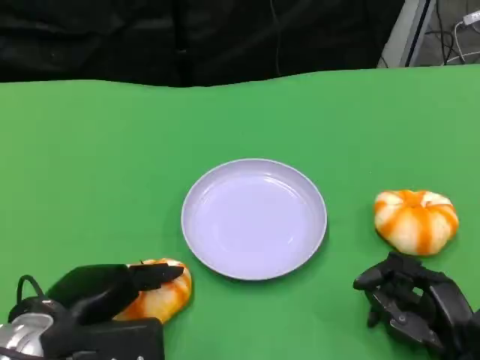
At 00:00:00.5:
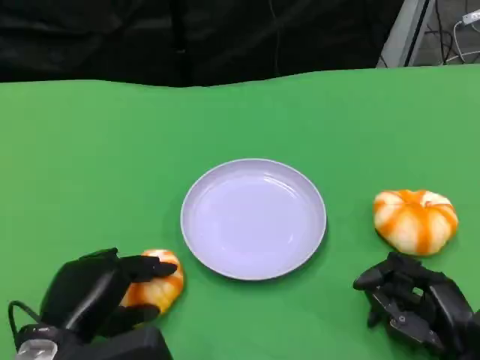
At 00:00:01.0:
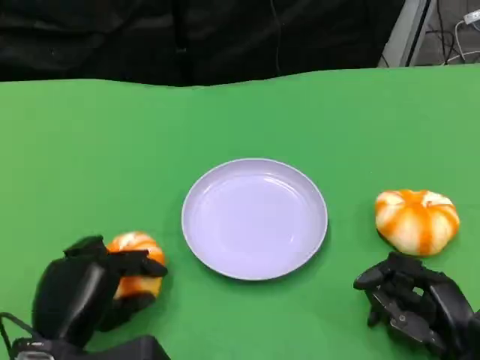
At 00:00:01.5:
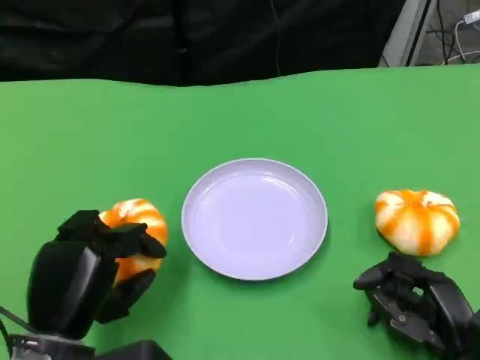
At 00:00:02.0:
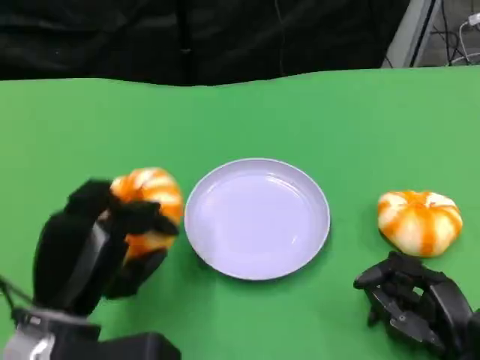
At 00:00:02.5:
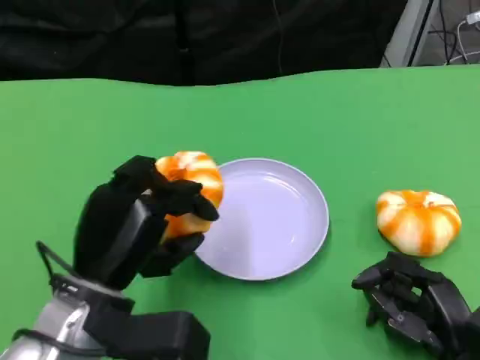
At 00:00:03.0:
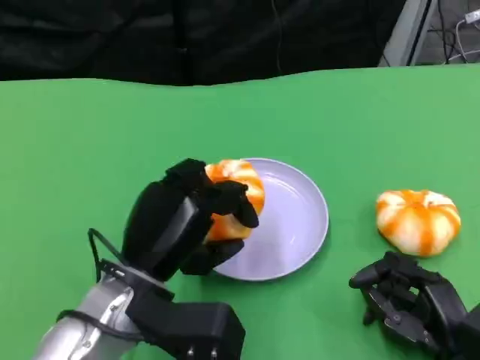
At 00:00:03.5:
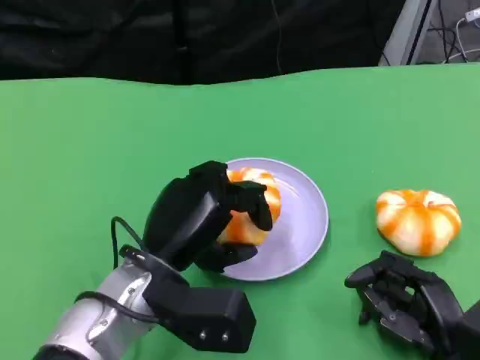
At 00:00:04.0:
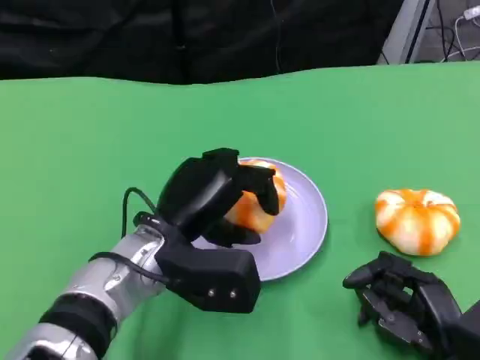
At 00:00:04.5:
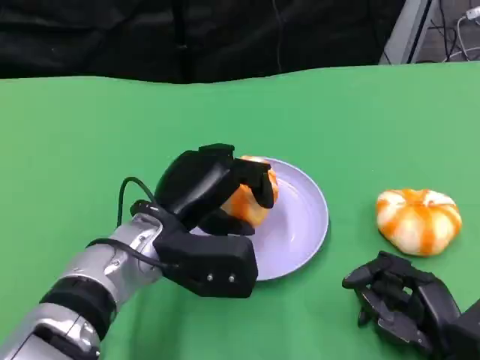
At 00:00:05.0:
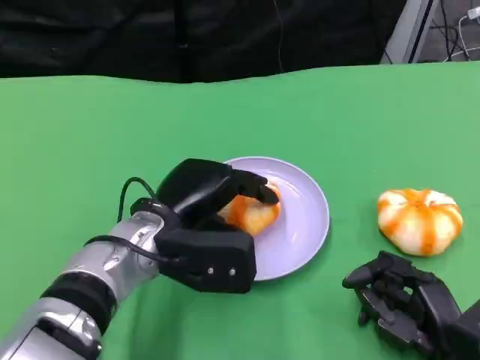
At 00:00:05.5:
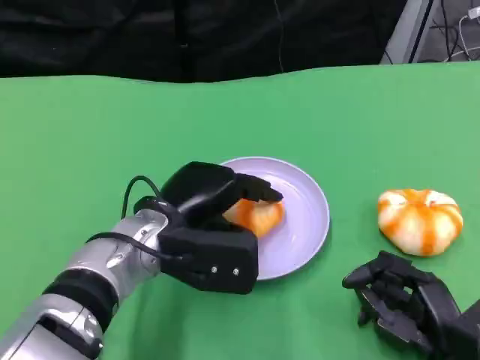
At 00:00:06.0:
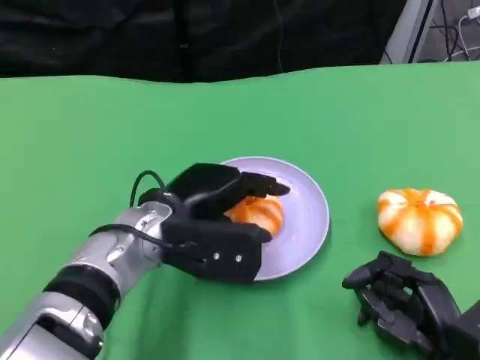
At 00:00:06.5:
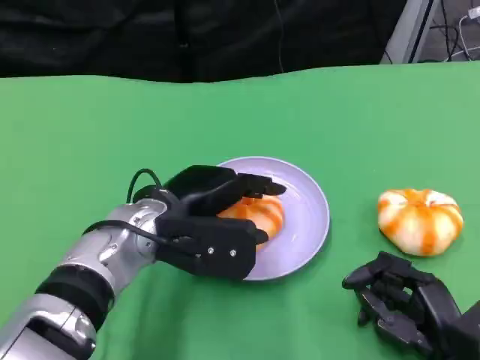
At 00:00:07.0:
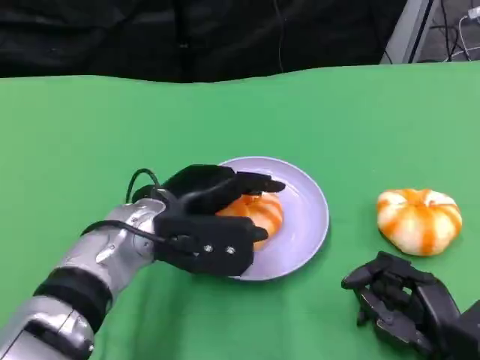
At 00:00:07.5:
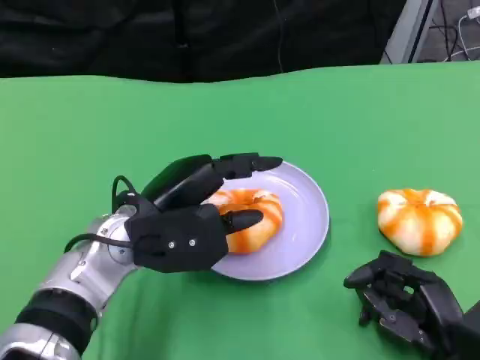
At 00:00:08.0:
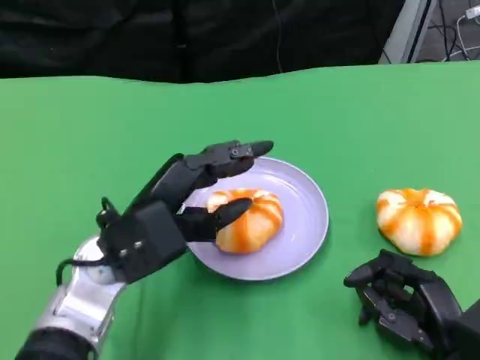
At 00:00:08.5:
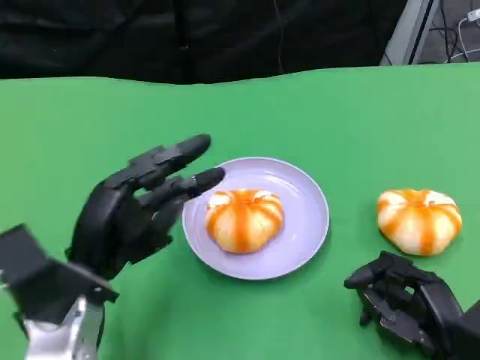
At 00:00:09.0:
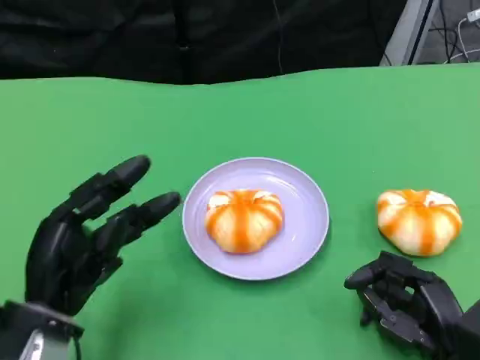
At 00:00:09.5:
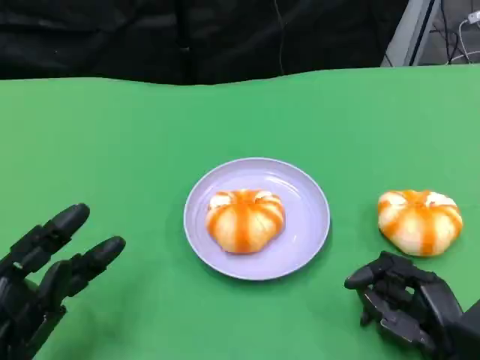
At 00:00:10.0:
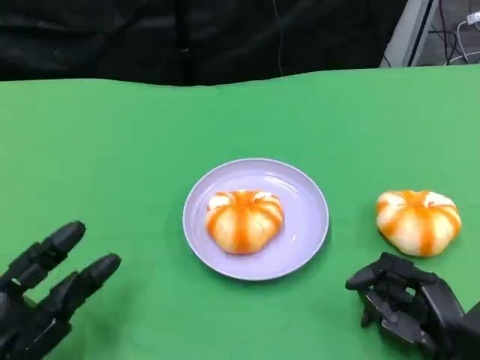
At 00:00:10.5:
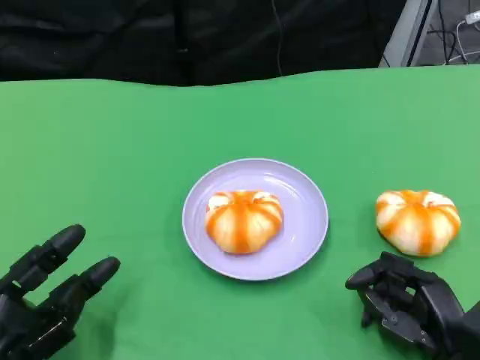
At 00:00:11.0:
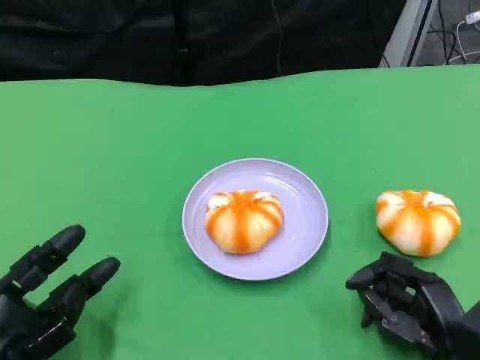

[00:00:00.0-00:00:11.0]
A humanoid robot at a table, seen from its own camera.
Task of the whole recording: Grasp the bread from the table and place it into the plate.
00:00:02.0 to 00:00:03.5: The left hand heads to the right, covering some 5 cm.
00:00:05.5 to 00:00:07.5: There are only small adjustments of the hands.
00:00:07.5 to 00:00:09.0: The left hand travels to the left, backward and downward by approximately 15 cm.
00:00:09.0 to 00:00:11.0: The left hand changes place by approximately 10 cm.

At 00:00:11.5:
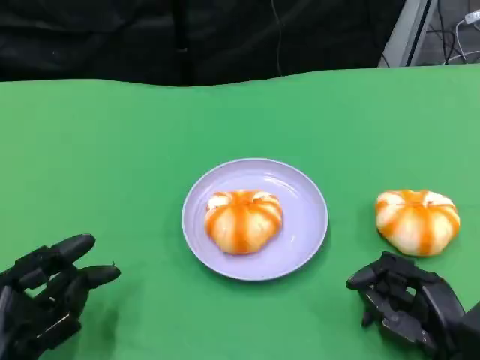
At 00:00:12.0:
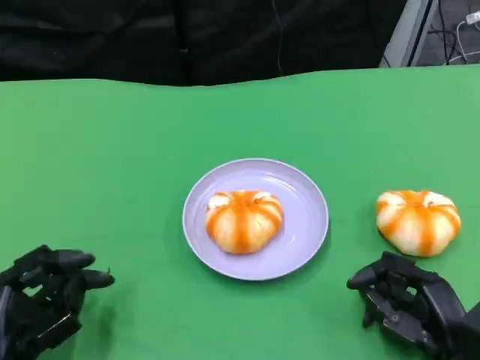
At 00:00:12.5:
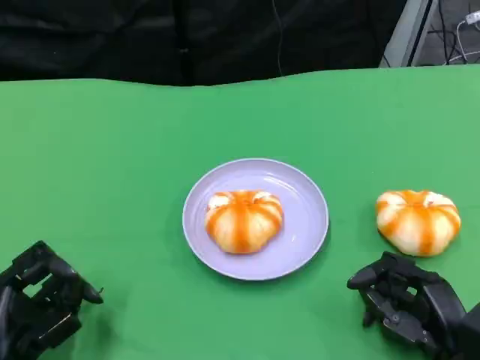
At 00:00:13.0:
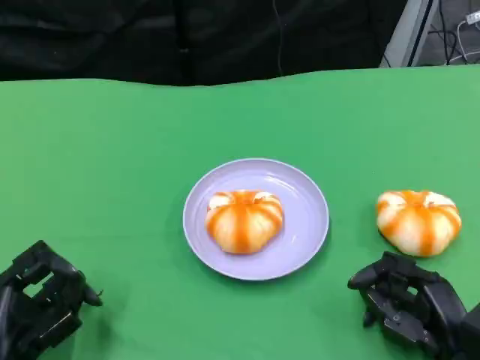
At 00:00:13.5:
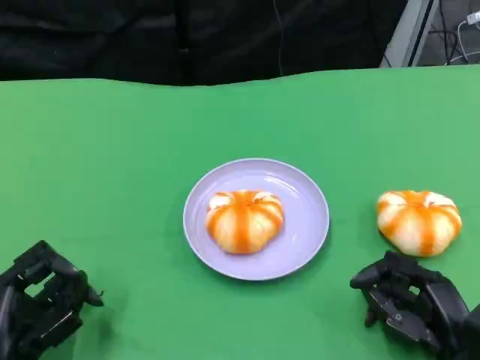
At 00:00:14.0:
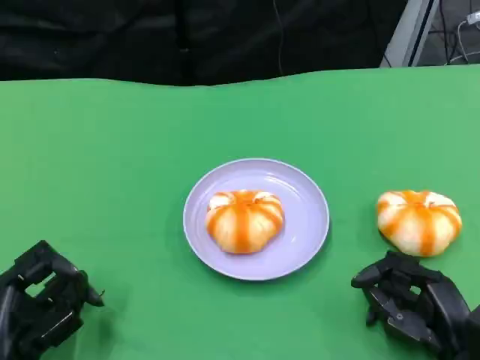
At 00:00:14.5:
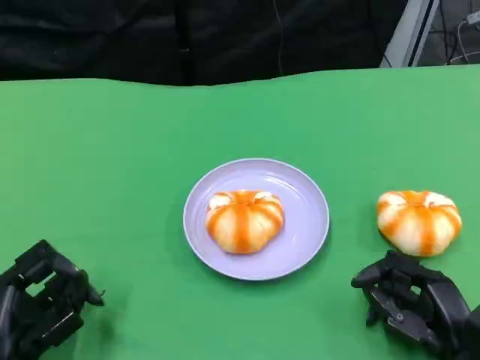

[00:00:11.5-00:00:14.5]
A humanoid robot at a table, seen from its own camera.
Task of the whole recording: Grasp the bread from the table and place it into the plate.
00:00:11.5 to 00:00:13.0: Both hands stay put.
00:00:13.0 to 00:00:14.5: Both hands stay put.

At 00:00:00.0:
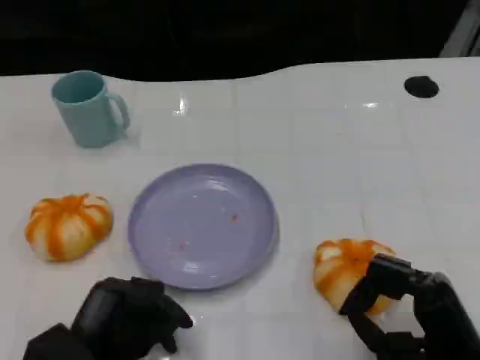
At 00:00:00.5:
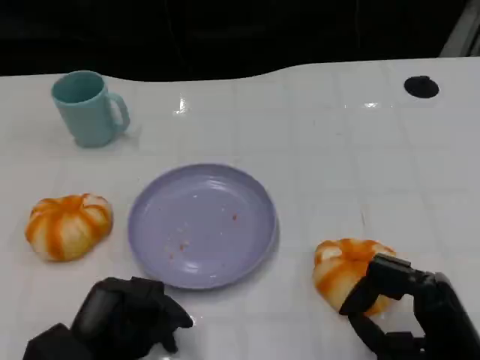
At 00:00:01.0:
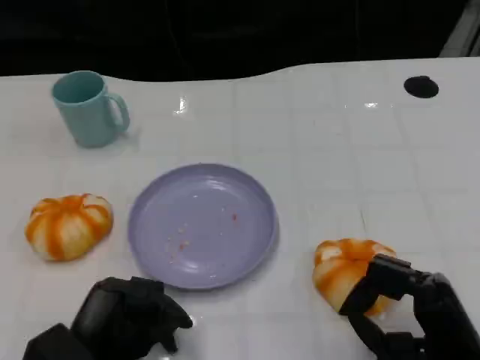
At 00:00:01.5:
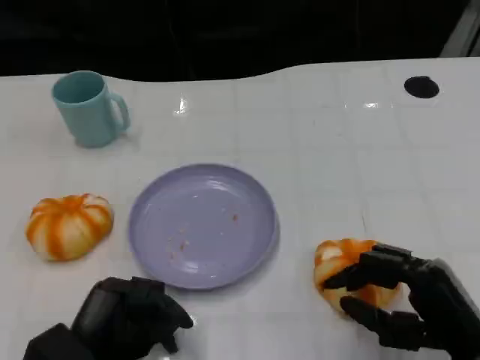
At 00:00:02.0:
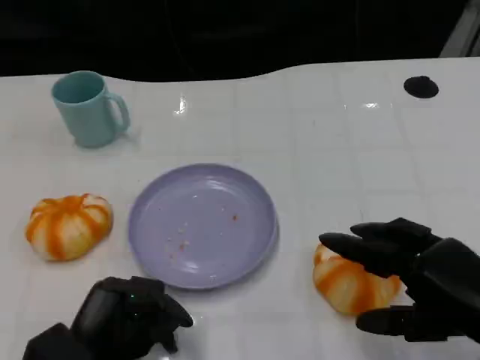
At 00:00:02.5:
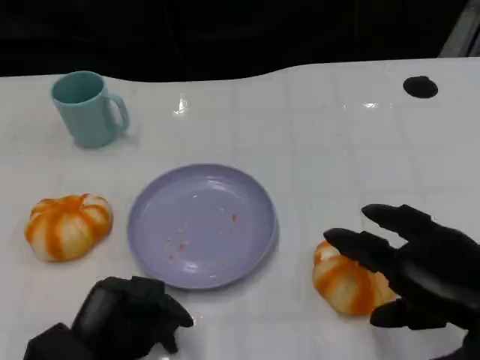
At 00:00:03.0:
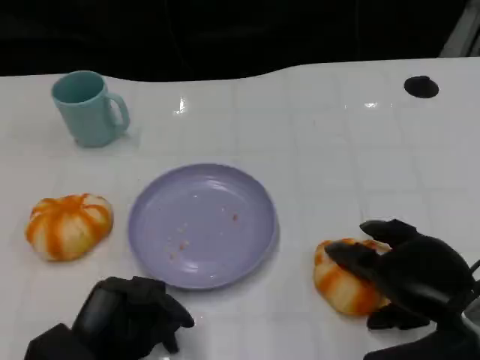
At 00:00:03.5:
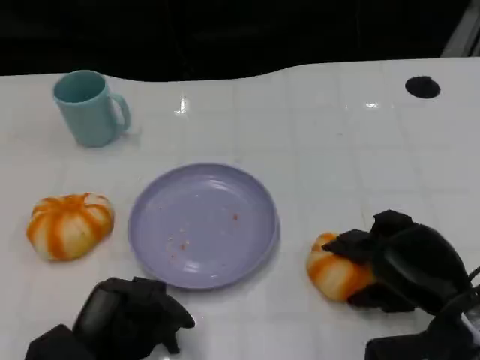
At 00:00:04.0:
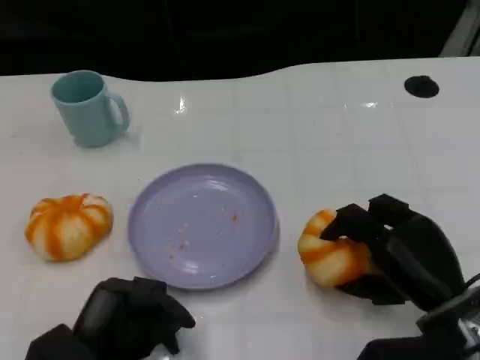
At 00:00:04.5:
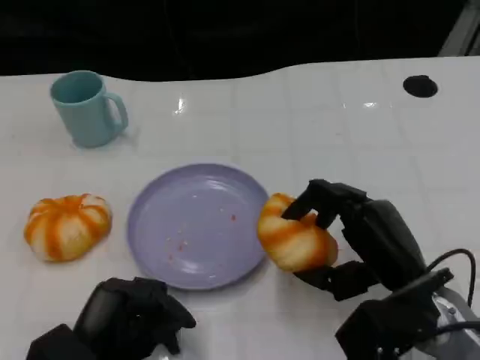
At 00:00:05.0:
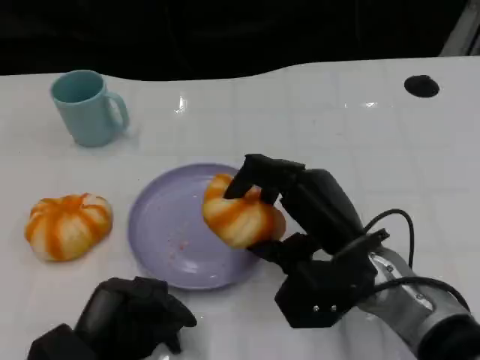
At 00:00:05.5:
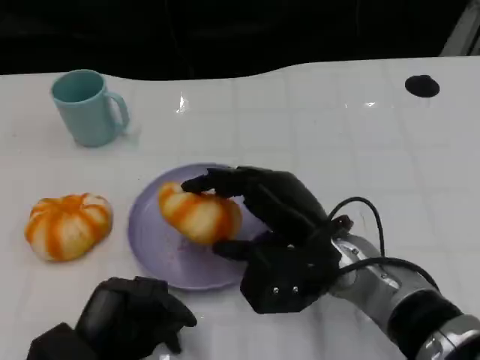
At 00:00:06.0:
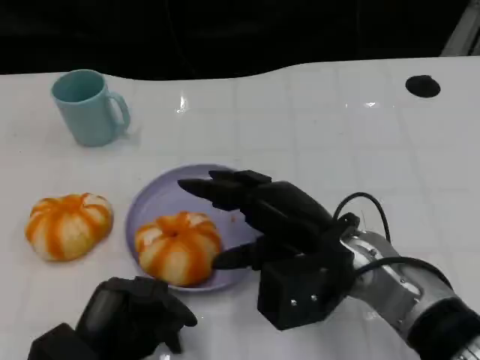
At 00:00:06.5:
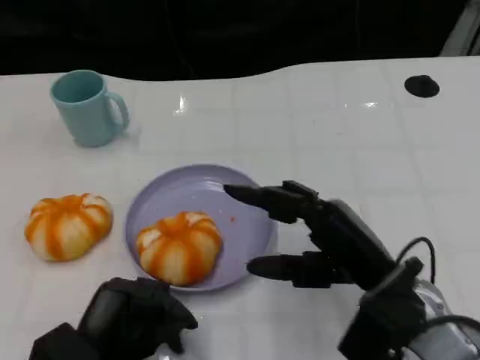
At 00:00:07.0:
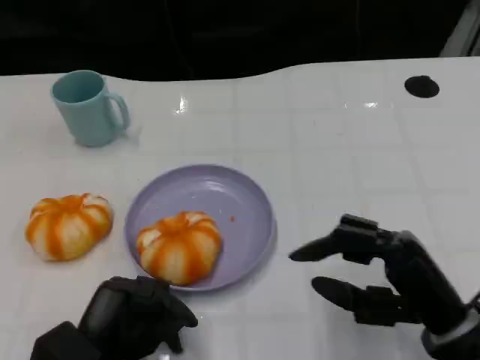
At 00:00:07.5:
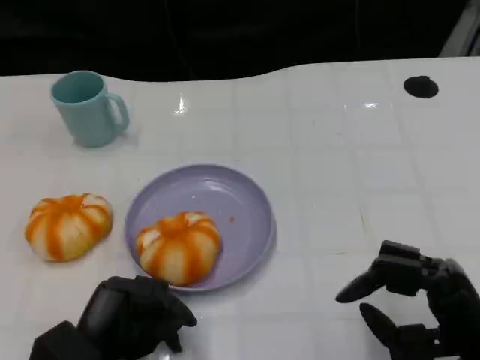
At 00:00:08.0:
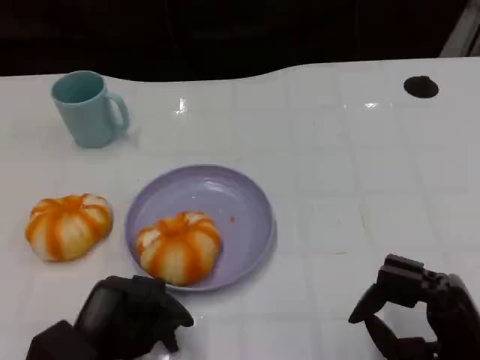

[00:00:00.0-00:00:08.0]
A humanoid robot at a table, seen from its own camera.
Task of the whole recording: Grasp the bread from the table and place it into the plate.
00:00:00.0 to 00:00:02.0: The right hand is displaced upward by roughly 10 cm.
00:00:02.0 to 00:00:04.0: The right hand shifts some 10 cm downward and forward.
00:00:04.0 to 00:00:06.0: The right hand goes about 10 cm to the left and upward.
00:00:06.0 to 00:00:08.0: The right hand shifts approximately 15 cm to the right, backward and downward.

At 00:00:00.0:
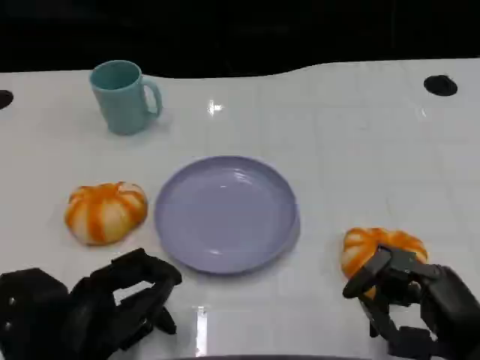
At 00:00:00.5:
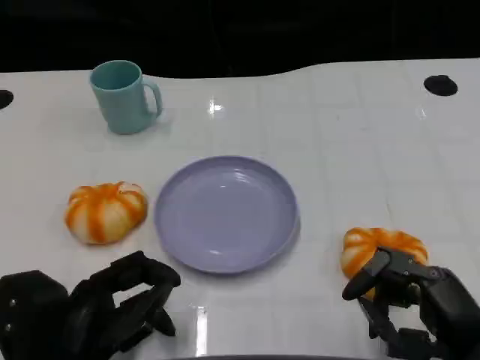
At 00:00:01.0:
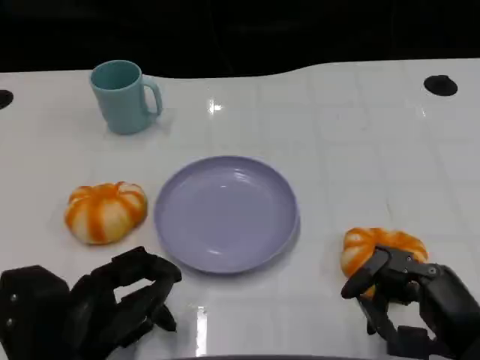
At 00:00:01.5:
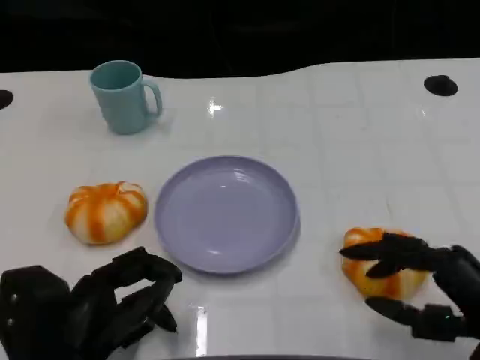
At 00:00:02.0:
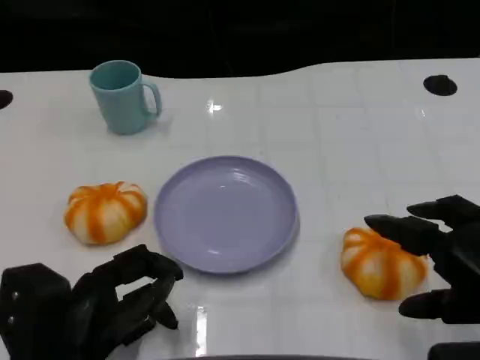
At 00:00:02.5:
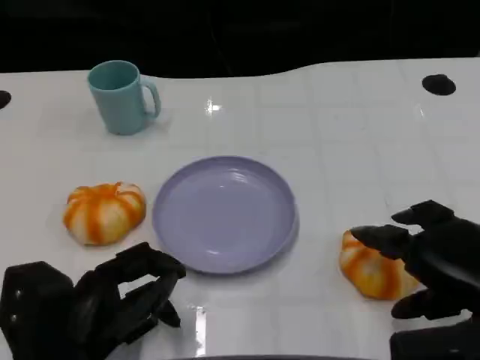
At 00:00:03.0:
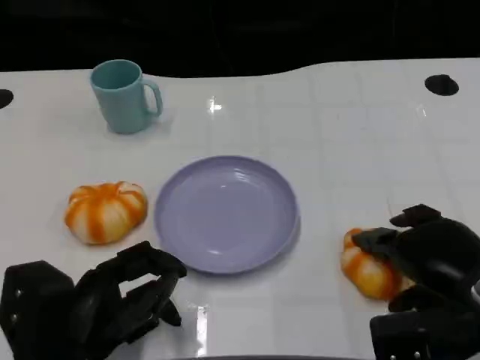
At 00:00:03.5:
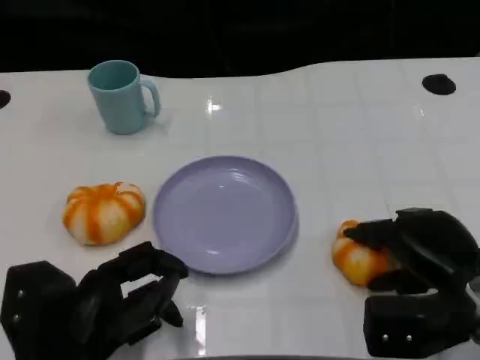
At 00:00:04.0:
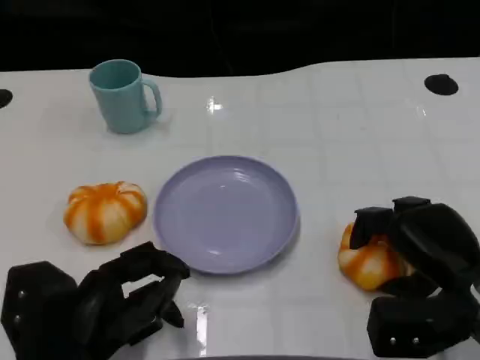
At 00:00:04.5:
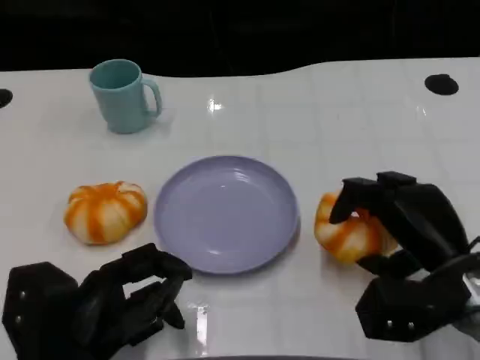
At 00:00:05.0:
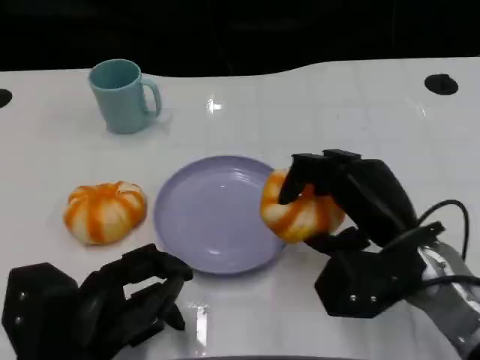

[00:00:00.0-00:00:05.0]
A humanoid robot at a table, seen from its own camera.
Task of the whole recording: Grasp the bread from the table and place it into the plate.
00:00:00.0 to 00:00:02.5: The right hand shifts by about 5 cm.
00:00:02.5 to 00:00:05.0: The right hand heads to the left and forward, covering some 10 cm.
